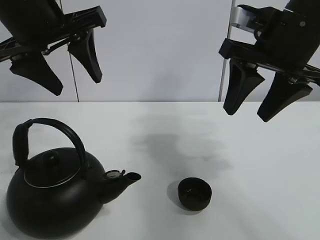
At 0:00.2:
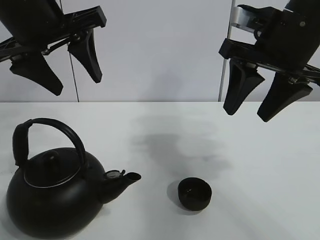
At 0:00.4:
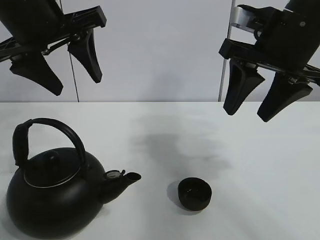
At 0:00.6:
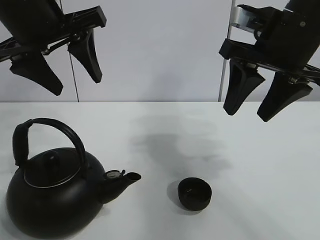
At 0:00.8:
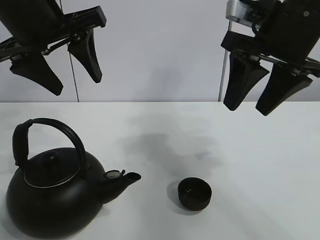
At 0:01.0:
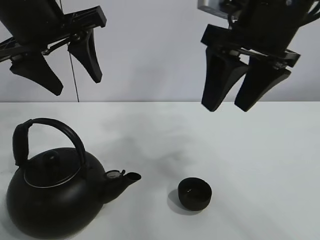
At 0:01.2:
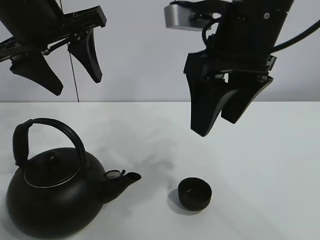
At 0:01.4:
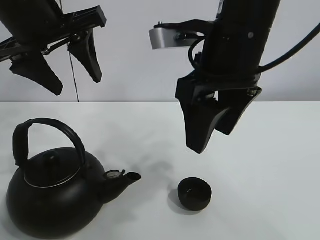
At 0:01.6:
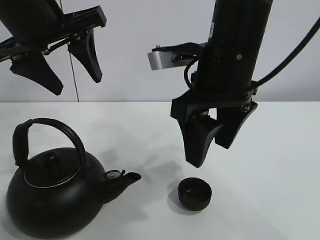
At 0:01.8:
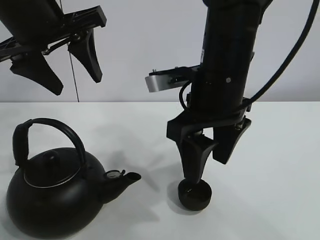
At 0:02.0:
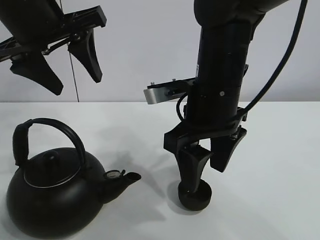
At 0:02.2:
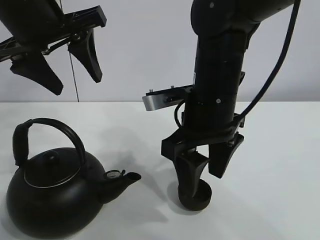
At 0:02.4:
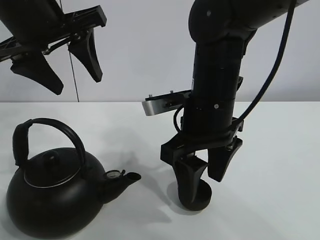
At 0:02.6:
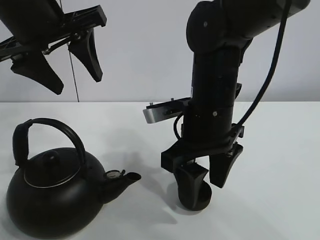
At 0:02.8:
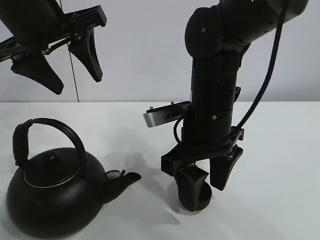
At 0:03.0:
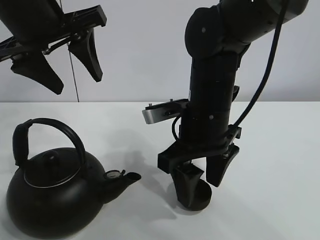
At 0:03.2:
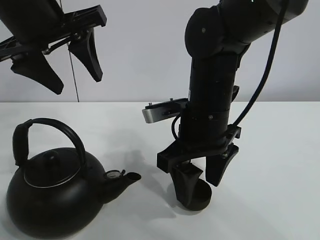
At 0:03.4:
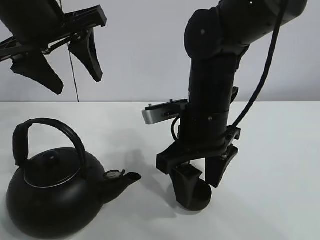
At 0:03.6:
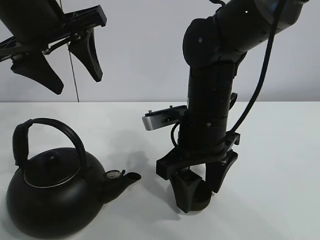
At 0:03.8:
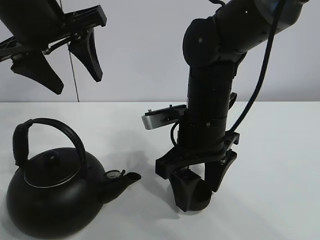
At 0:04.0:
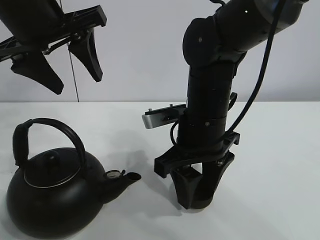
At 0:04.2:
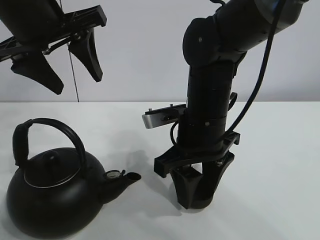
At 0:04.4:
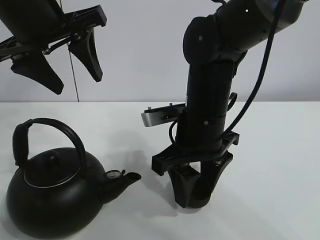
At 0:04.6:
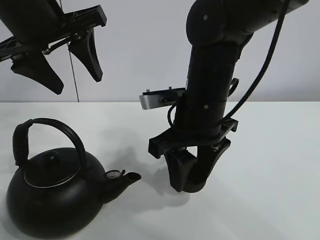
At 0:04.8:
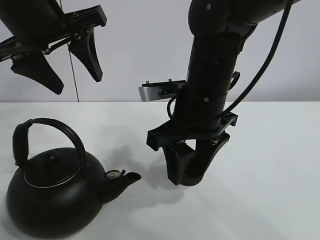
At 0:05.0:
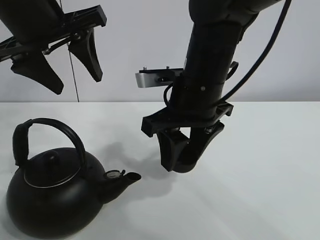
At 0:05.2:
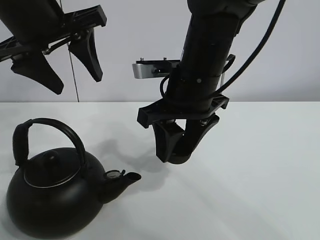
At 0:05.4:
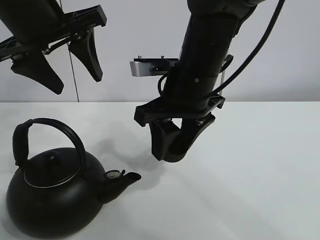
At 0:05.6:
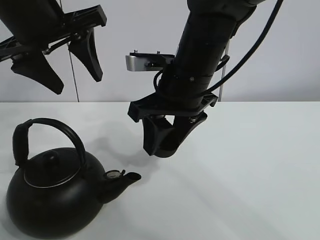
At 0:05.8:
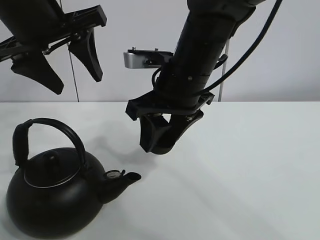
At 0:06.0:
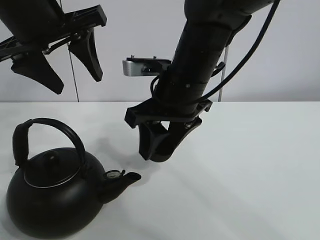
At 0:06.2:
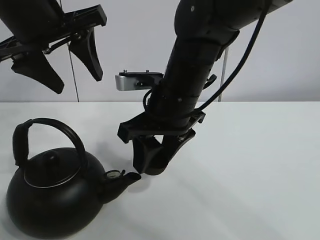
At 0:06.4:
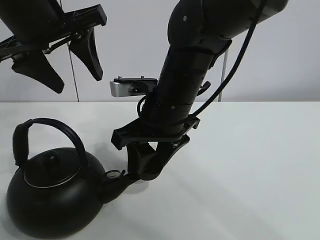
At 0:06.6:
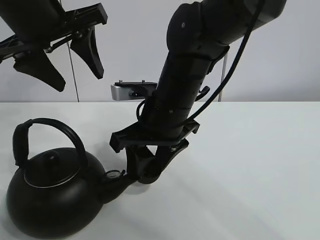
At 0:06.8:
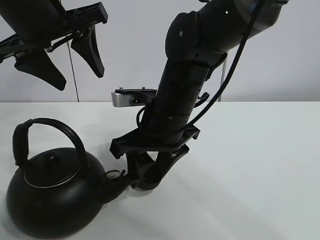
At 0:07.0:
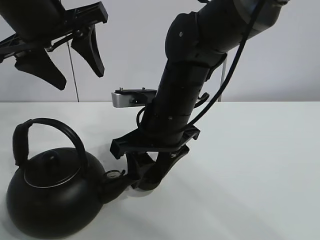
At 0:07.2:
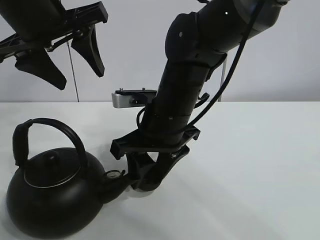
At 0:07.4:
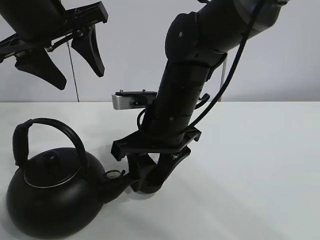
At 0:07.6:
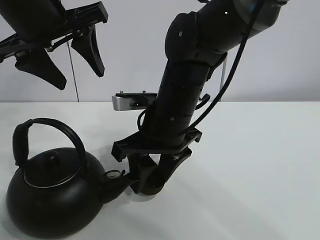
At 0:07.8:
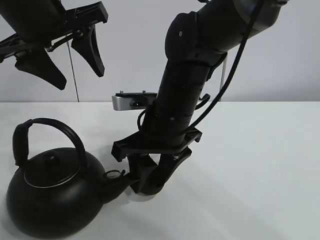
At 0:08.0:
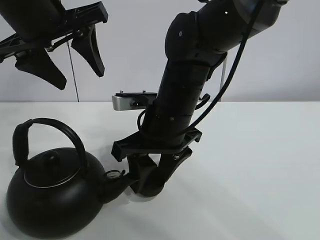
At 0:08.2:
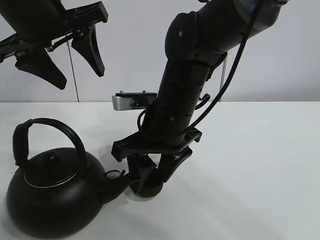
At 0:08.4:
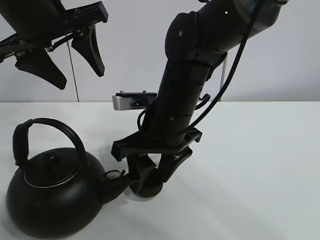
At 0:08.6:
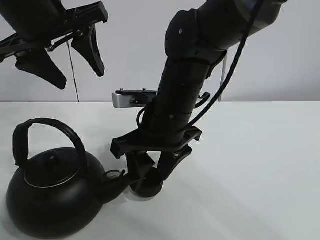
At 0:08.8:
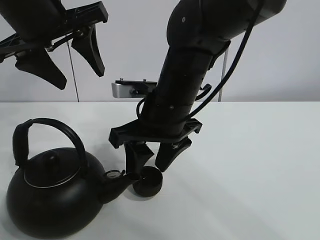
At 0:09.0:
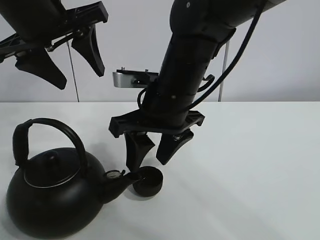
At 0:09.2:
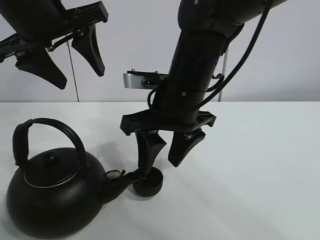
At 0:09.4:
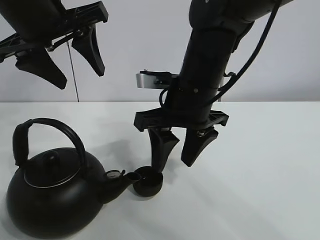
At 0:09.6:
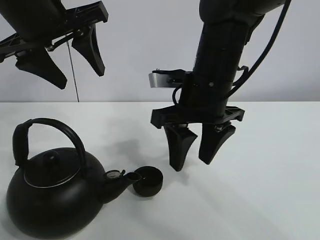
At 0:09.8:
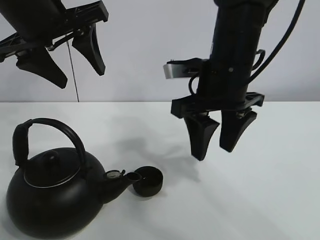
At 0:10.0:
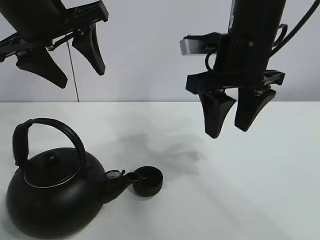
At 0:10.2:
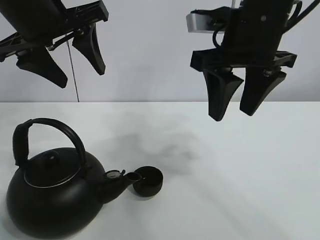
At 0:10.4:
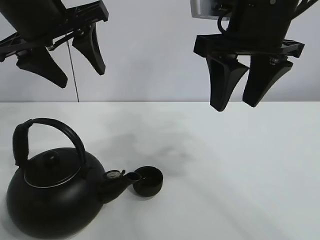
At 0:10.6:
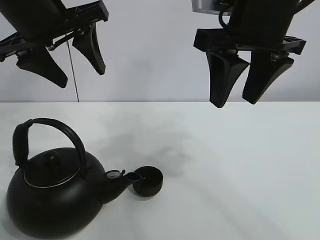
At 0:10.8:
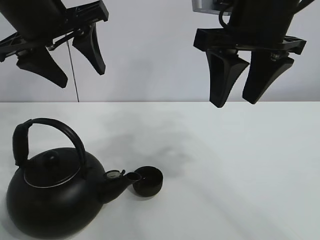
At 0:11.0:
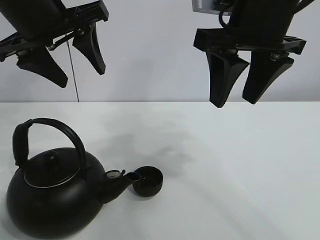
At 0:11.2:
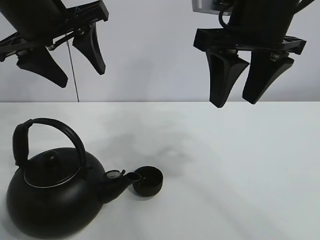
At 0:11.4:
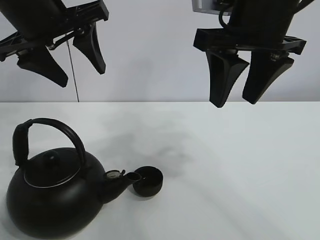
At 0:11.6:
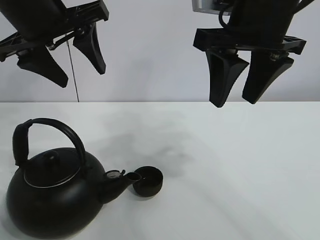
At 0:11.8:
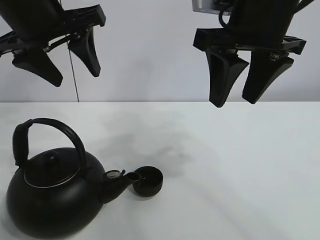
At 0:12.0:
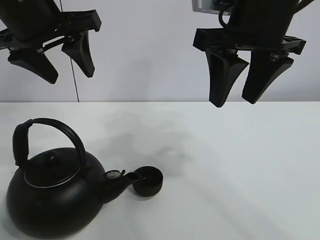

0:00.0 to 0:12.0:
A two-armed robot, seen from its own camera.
Task of the whole recording: pour tea into the teacup.
Step, 0:00.0 to 0:04.0: Pick up the teacup with the right gripper.
Step, 0:04.4 to 0:08.4: Place the teacup in the center of view with the right gripper.
0:01.6 to 0:03.0: The right gripper goes roughly 10 cm downward.
0:03.0 to 0:04.4: The right gripper closes its fingers.
0:04.4 to 0:06.0: The right gripper goes some 5 cm upward.
0:06.0 to 0:07.6: The right gripper moves some 5 cm.
0:07.6 to 0:09.0: The grippers make only small movements.
0:09.0 to 0:10.4: The right gripper travels upward and to the right by about 15 cm.
0:10.4 to 0:12.0: The grippers move only a little.

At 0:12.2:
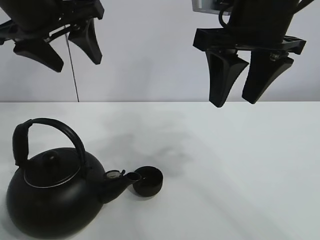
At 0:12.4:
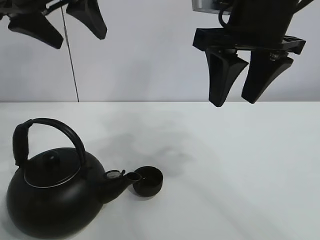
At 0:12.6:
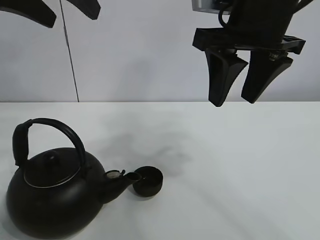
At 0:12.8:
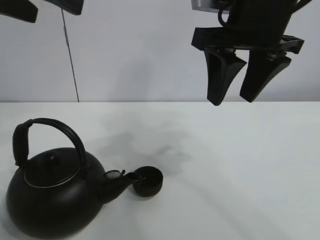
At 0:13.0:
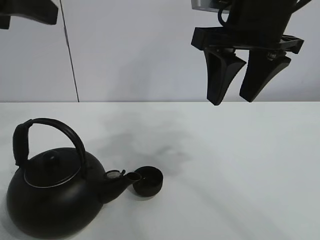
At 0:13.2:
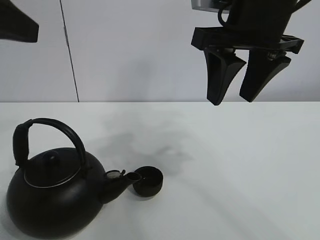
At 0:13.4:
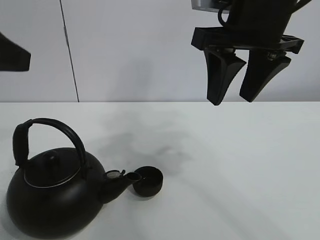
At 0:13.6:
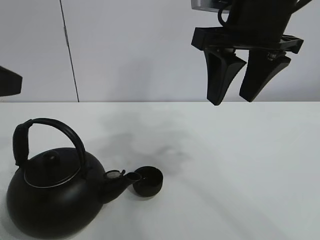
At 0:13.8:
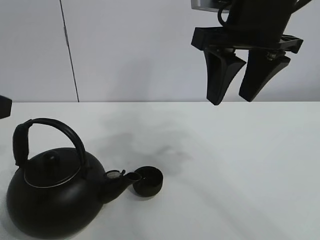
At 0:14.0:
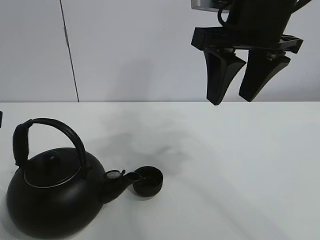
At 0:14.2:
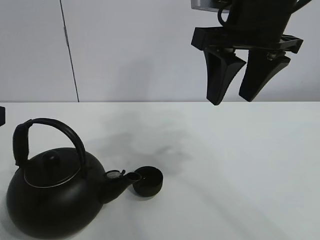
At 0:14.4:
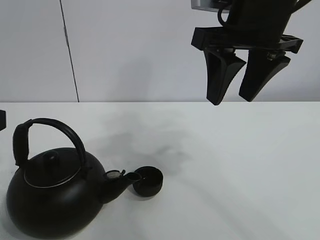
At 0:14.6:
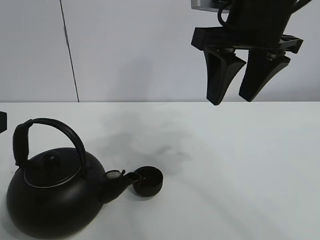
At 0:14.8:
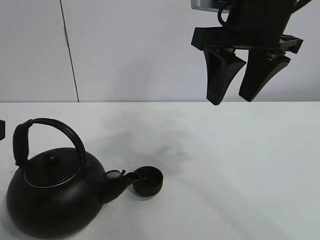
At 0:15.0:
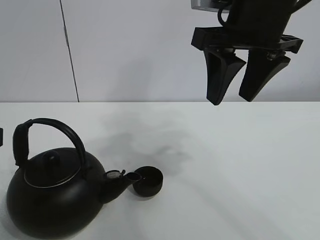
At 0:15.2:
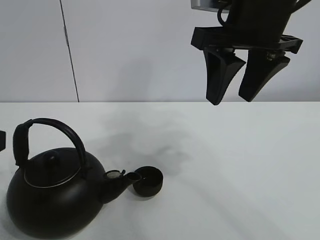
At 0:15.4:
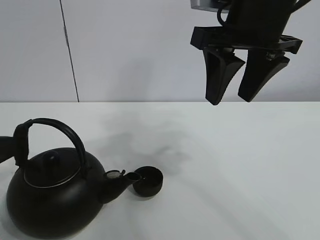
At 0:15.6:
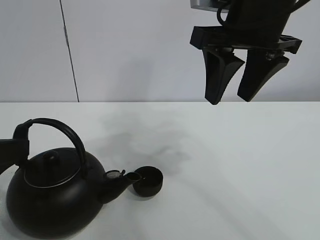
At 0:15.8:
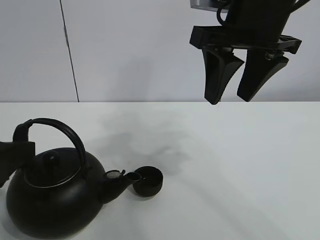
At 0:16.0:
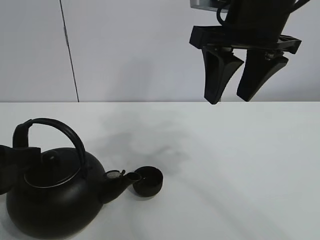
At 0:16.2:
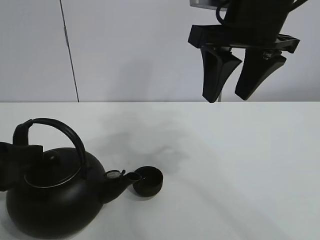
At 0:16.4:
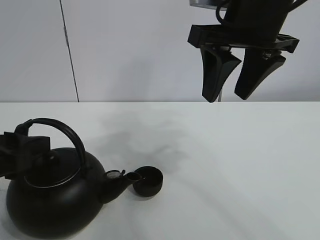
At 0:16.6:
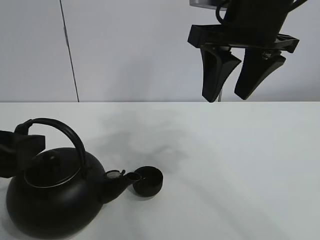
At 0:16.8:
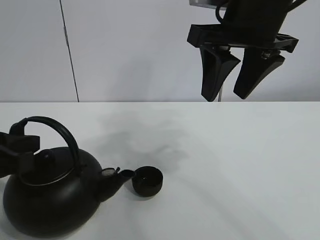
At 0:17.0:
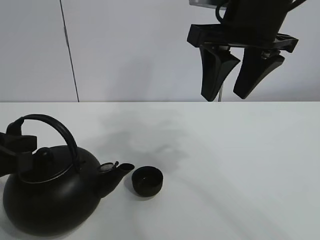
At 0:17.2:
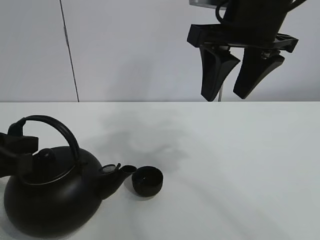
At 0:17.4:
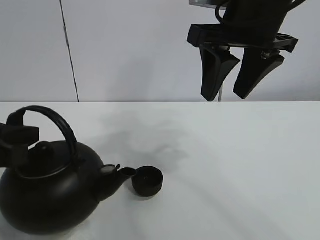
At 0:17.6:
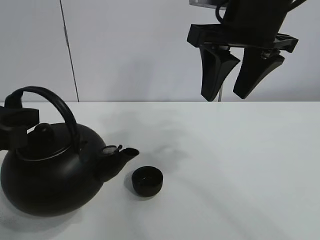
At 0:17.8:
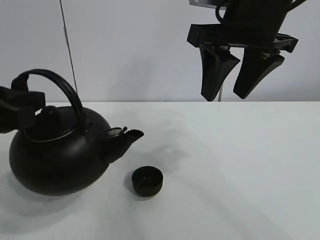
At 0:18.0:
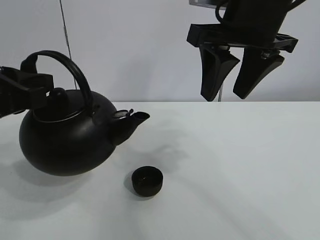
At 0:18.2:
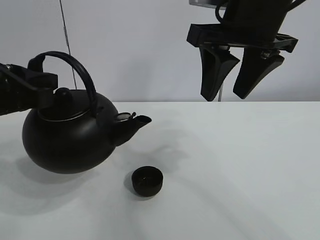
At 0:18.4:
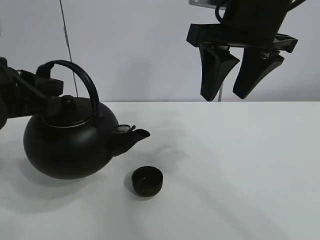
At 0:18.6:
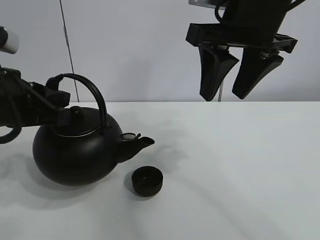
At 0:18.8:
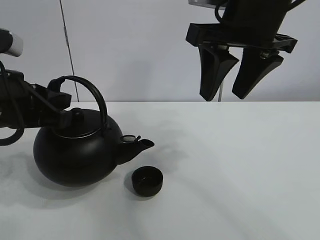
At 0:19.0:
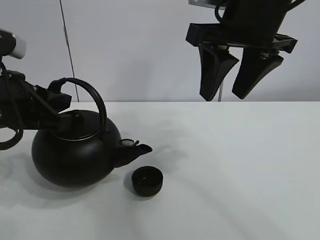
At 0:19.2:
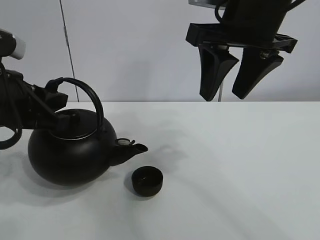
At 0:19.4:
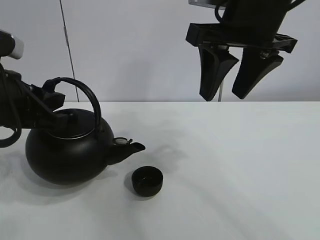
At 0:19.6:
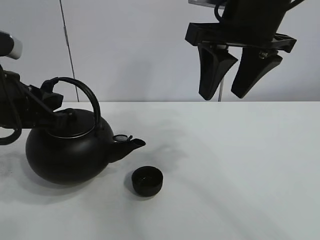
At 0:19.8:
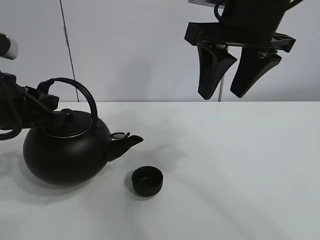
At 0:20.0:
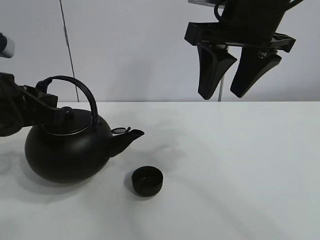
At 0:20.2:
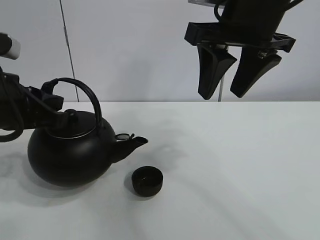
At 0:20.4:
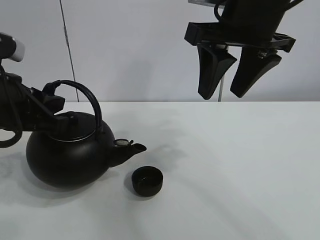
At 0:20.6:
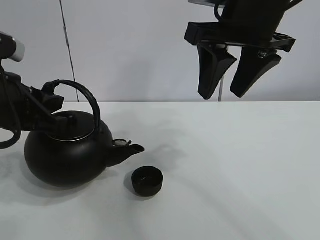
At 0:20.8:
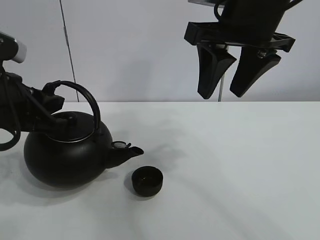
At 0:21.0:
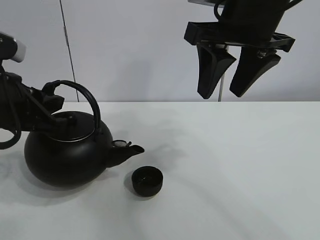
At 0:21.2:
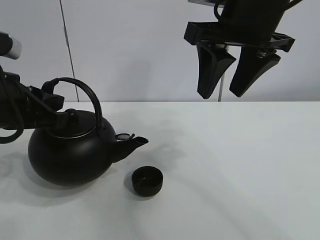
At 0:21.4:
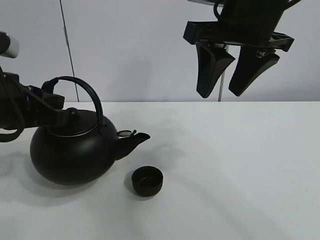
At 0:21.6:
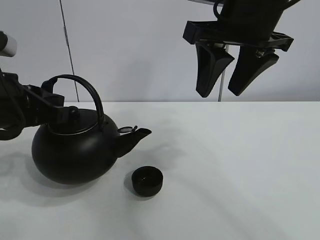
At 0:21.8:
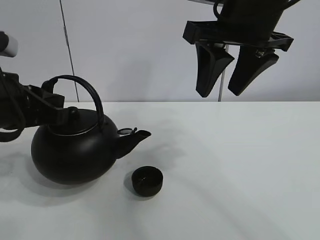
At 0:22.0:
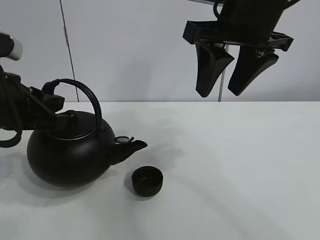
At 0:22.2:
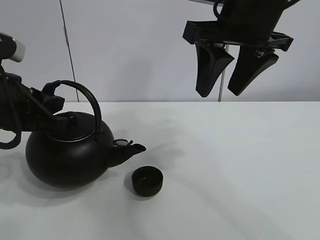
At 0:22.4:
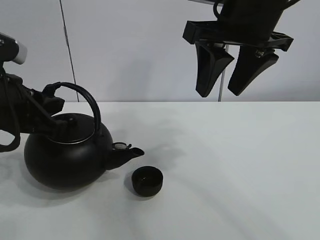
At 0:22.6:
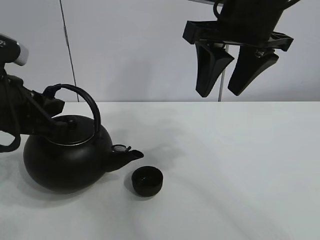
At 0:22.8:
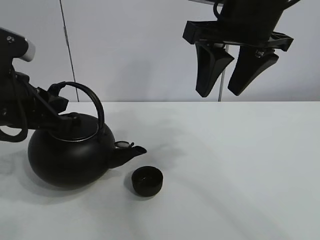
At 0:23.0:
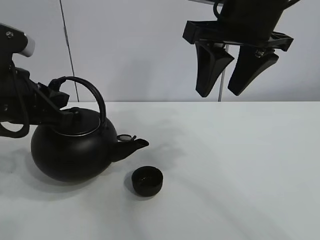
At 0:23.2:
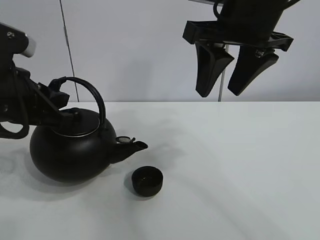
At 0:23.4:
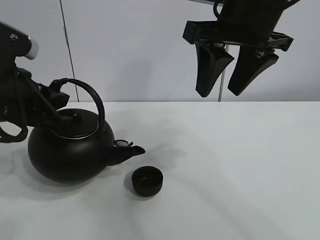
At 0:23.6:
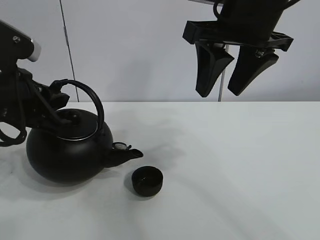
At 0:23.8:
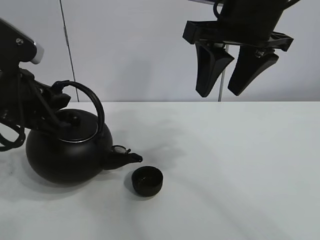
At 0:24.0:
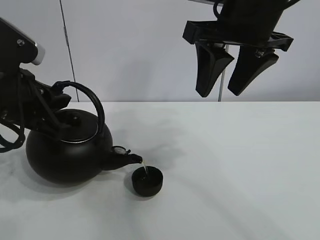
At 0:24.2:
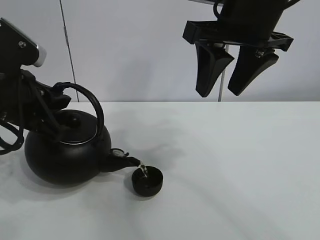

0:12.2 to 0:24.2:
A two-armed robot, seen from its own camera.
Task of the whole recording: pour tea into the teacup.
Step, 0:12.2 to 0:17.2: Pick up the teapot with the left gripper.
0:12.2 to 0:13.8: The left gripper moves backward, to the left and downward, roughly 20 cm.
0:15.2 to 0:16.6: The left gripper moves forward and downward, roughly 10 cm.
0:16.6 to 0:18.2: The left gripper goes about 5 cm upward, and closes its fingers.
0:18.2 to 0:22.6: The grippers move only a little.
0:22.6 to 0:24.2: The grippers make only small movements.
